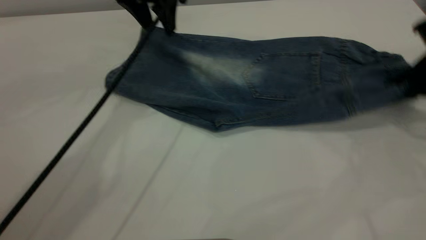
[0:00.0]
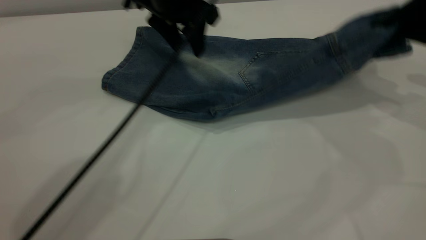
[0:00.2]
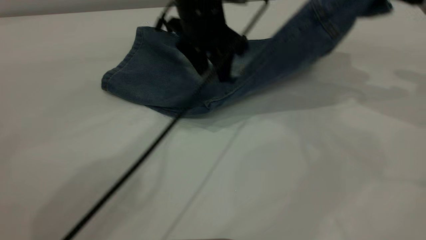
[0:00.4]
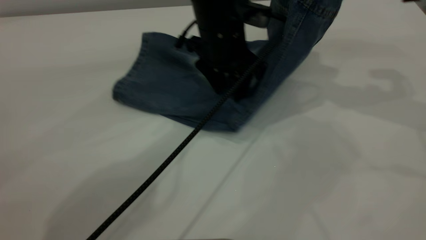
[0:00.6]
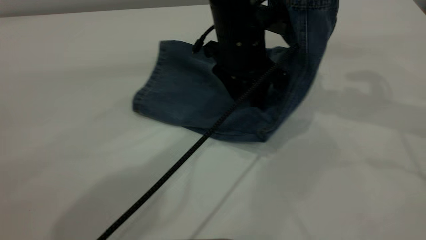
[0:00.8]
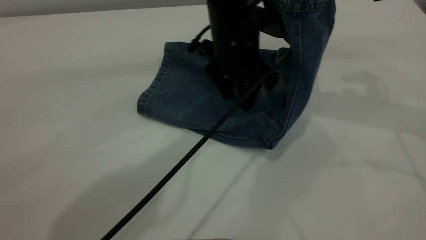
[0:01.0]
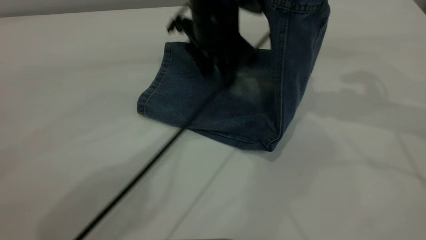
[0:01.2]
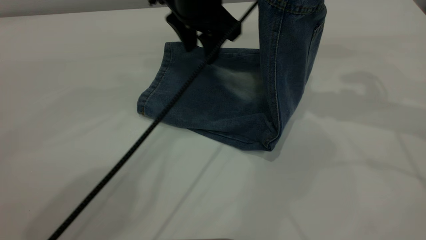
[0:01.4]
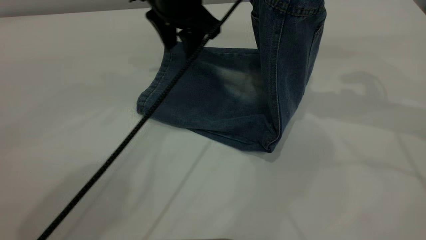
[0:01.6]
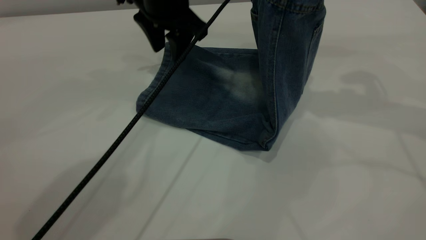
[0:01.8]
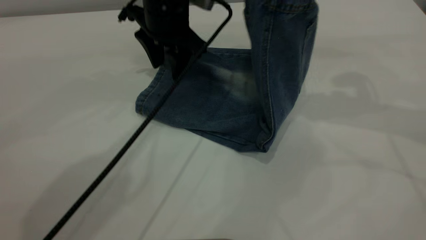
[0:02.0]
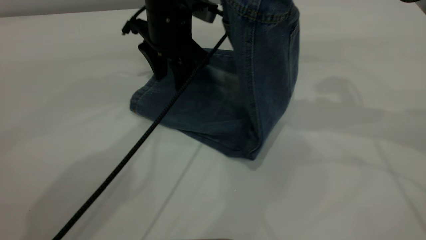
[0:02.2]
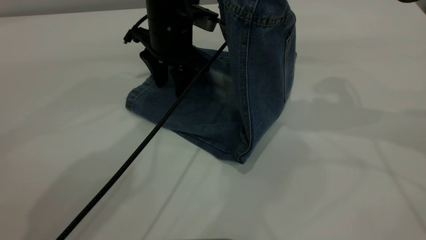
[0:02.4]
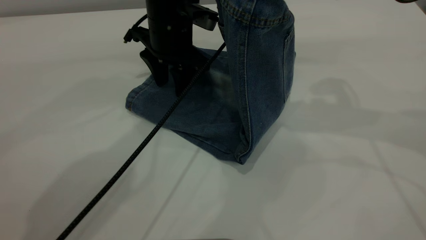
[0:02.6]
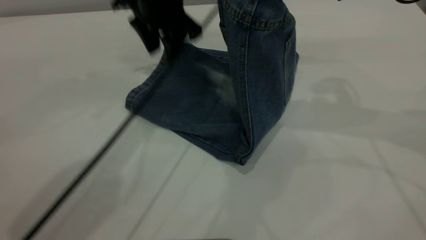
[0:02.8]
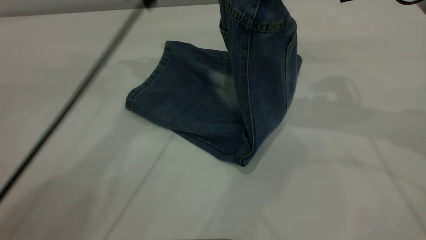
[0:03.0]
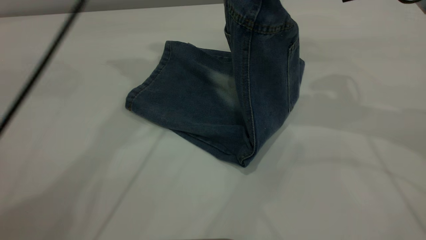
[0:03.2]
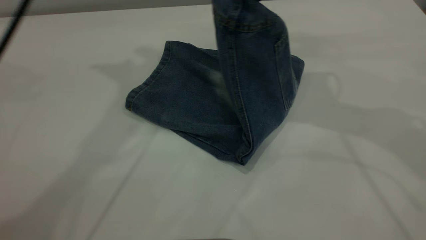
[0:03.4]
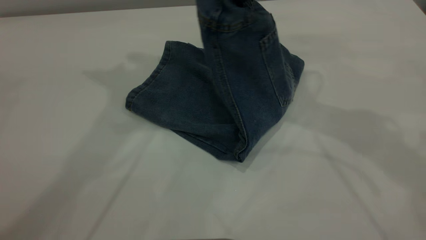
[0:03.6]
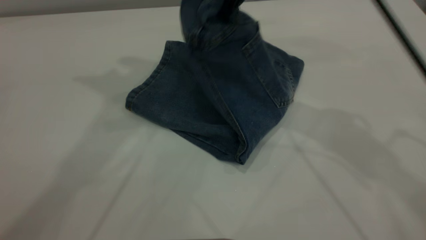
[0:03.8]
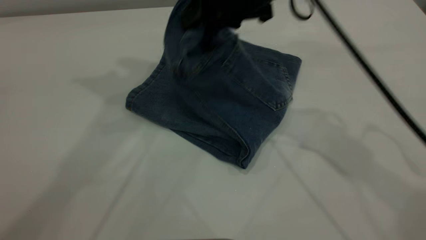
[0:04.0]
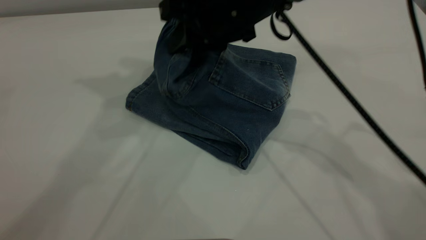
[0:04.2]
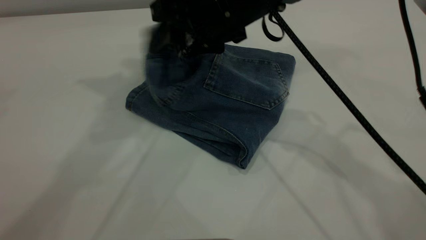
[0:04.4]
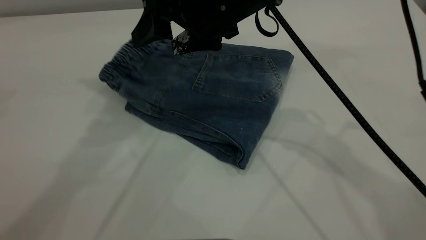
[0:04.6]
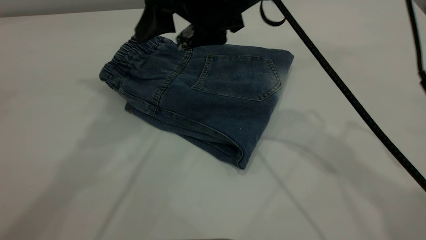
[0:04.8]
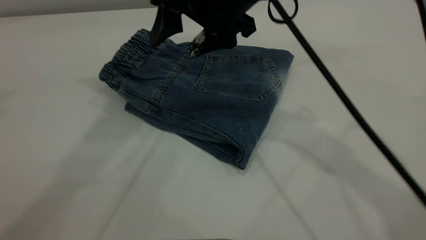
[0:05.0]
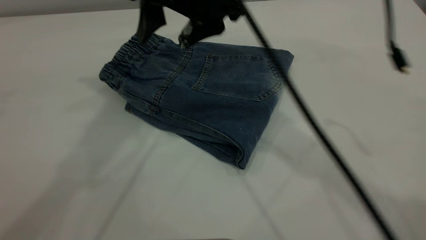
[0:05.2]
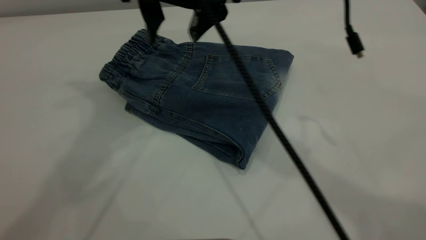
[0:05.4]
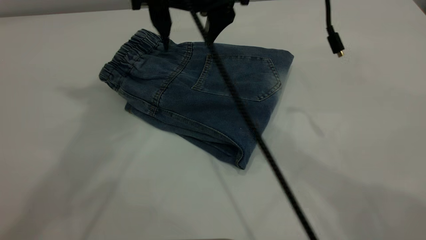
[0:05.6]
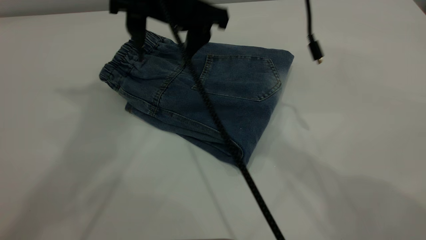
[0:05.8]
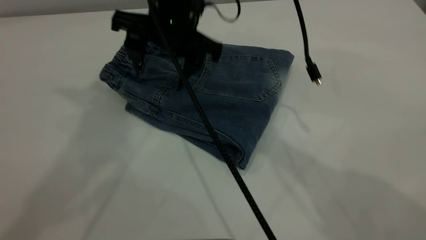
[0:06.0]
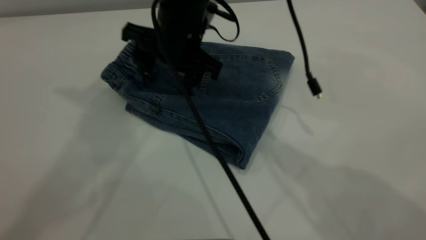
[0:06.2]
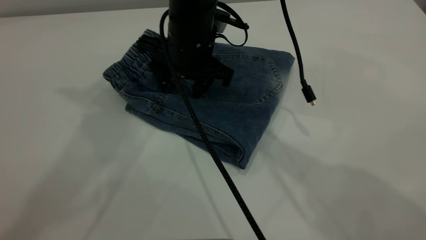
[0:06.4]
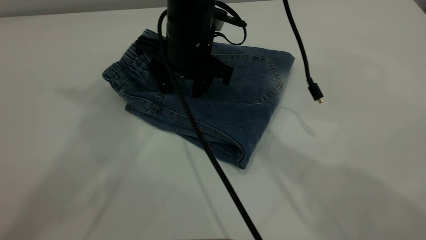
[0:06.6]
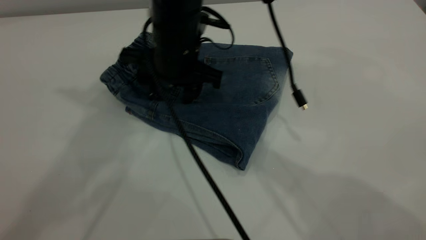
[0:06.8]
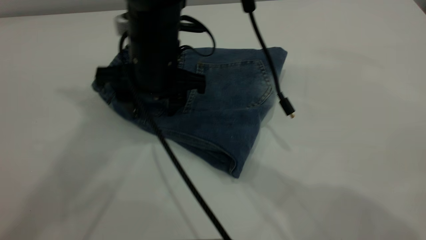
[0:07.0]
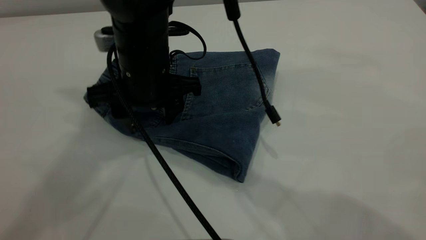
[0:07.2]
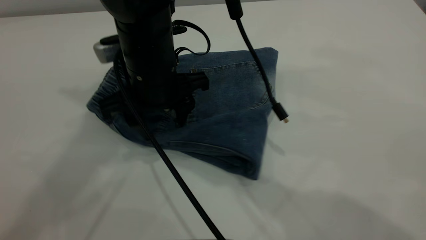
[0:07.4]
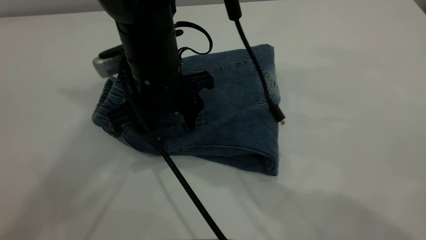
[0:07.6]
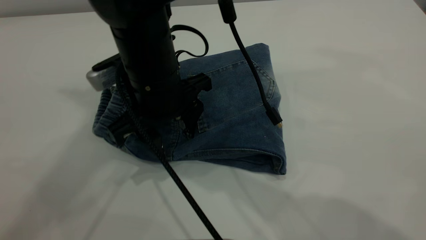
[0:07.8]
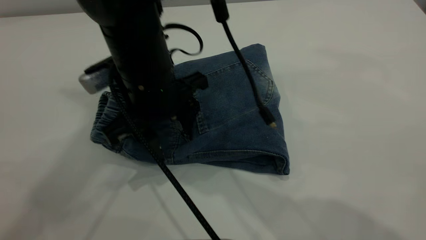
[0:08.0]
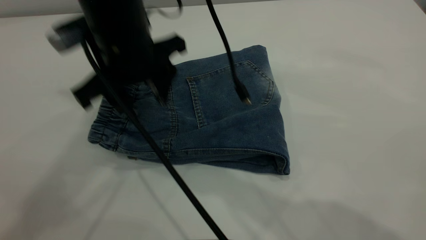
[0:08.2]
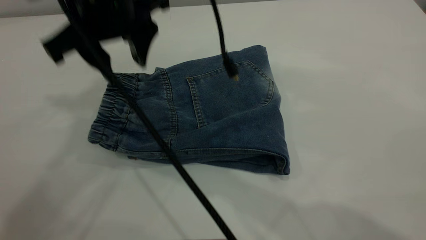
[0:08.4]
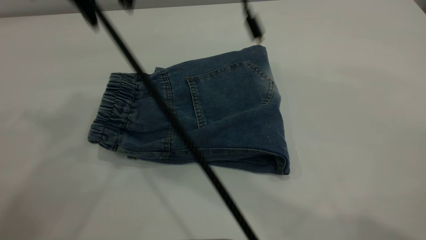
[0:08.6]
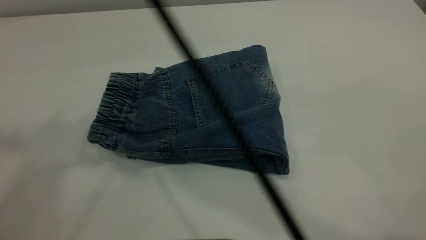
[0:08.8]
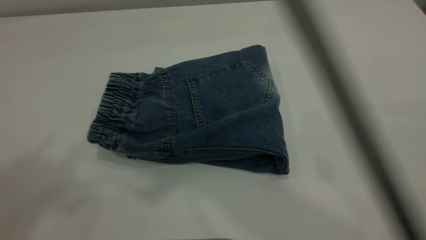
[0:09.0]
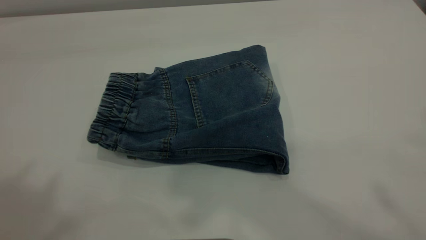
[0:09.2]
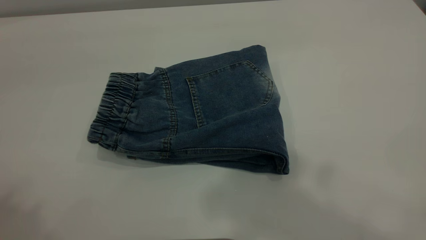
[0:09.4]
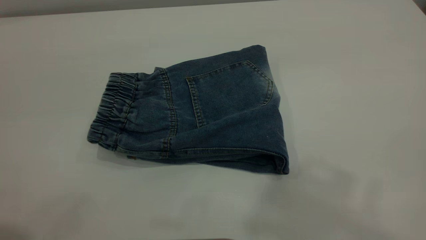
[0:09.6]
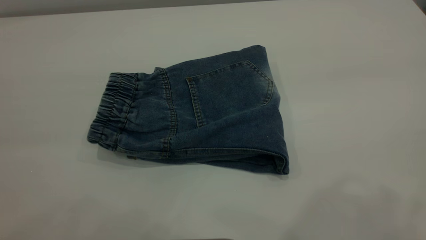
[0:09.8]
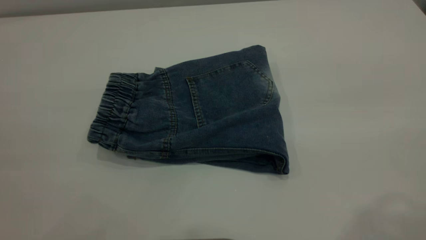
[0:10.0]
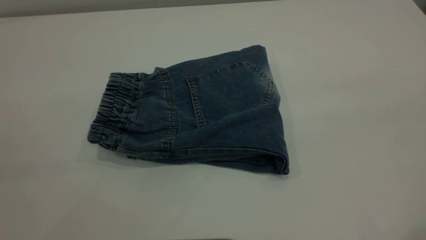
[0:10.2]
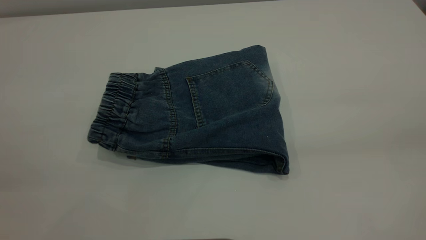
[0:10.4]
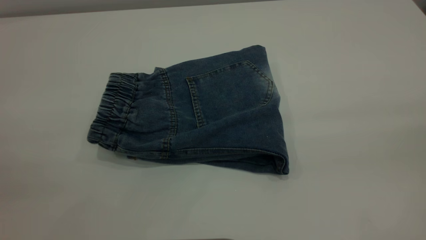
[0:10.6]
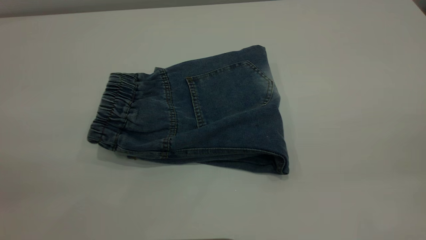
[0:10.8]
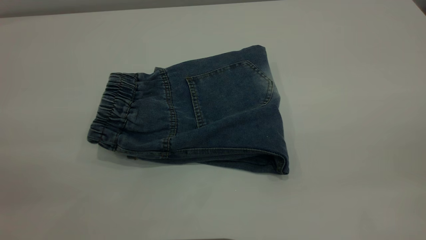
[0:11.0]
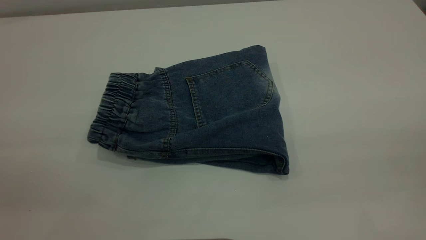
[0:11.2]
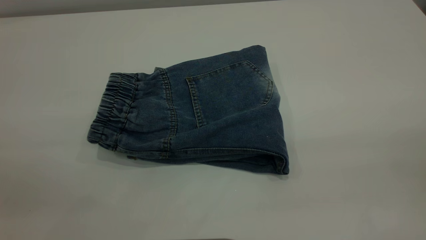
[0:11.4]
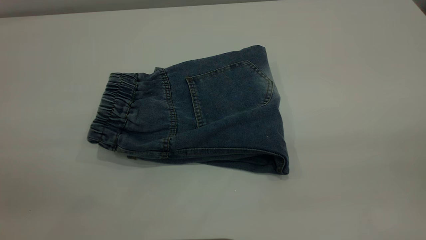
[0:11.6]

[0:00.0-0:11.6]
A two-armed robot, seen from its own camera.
Step, 0:00.0 to 0:05.4: Fold your pants from right to left.
0:00.0 to 0:01.4: The right gripper goes some 15 cm upward and to the left. Meanwhile the left gripper moves to the right, roughly 5 cm.
0:01.4 to 0:02.8: The left gripper travels to the left by some 5 cm.
0:02.8 to 0:04.4: The left gripper moves upward, about 25 cm; the right gripper moves to the left and downward, about 15 cm, and opens.
0:04.4 to 0:05.8: The left gripper travels upward by about 5 cm, while the right gripper travels to the left by some 5 cm.
0:05.8 to 0:07.2: The right gripper shifts some 10 cm downward and backward.
0:07.2 to 0:08.8: The right gripper heads upward, covering about 30 cm, while the left gripper moves backward, upward and to the left, some 15 cm.
0:08.8 to 0:10.2: The right gripper travels to the right and backward by some 35 cm. Meanwhile the left gripper moves downward and backward, about 30 cm.
